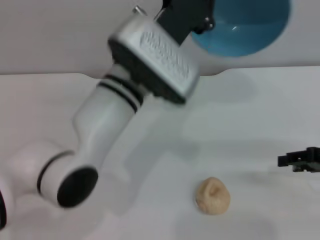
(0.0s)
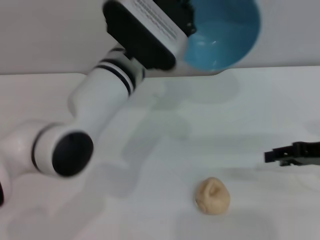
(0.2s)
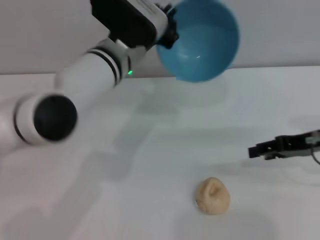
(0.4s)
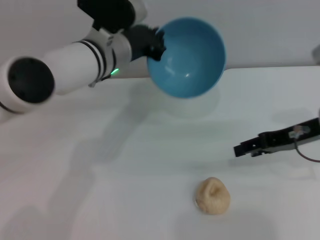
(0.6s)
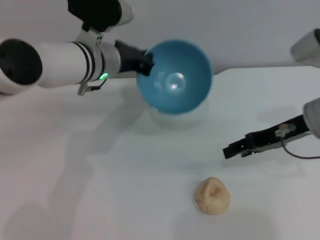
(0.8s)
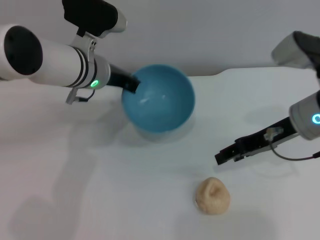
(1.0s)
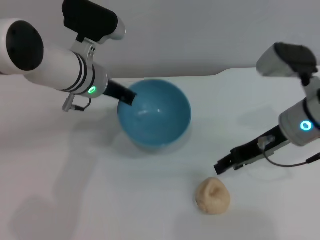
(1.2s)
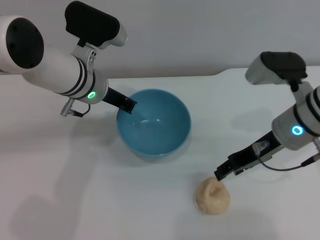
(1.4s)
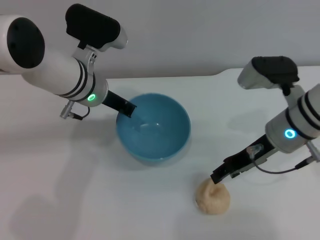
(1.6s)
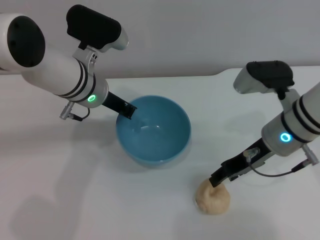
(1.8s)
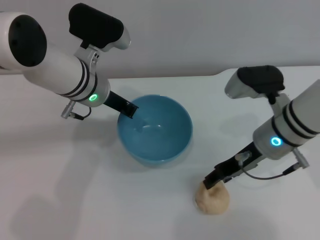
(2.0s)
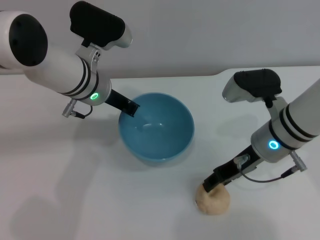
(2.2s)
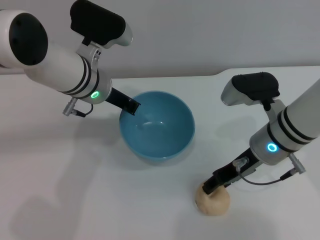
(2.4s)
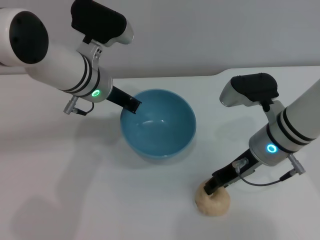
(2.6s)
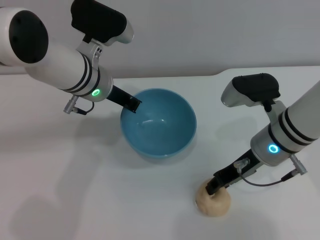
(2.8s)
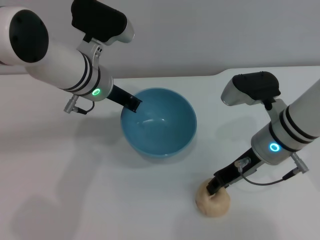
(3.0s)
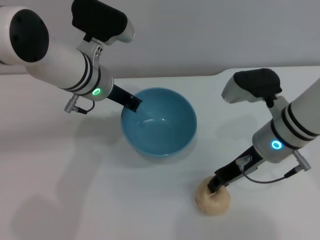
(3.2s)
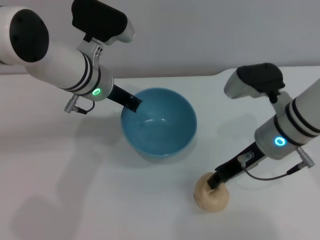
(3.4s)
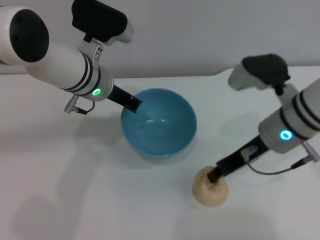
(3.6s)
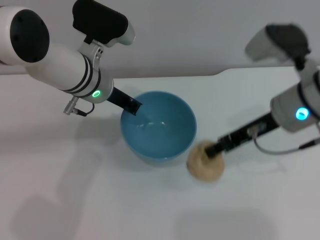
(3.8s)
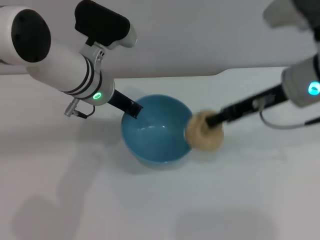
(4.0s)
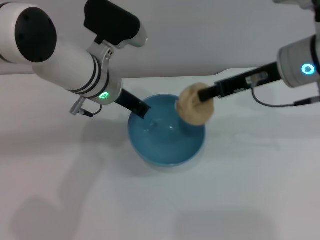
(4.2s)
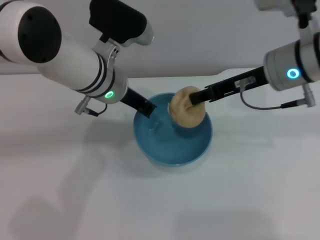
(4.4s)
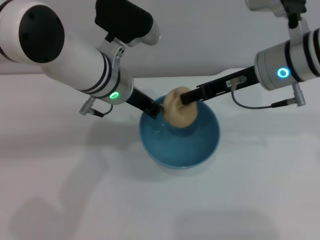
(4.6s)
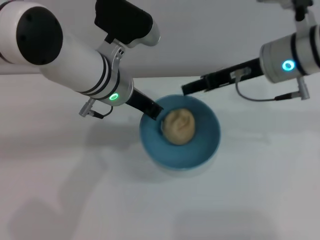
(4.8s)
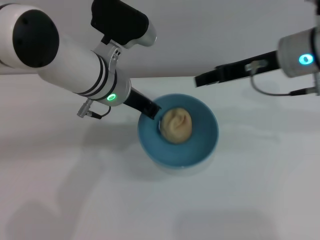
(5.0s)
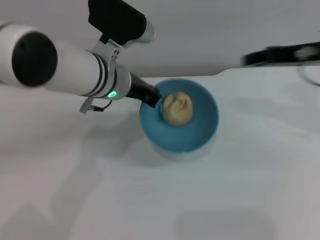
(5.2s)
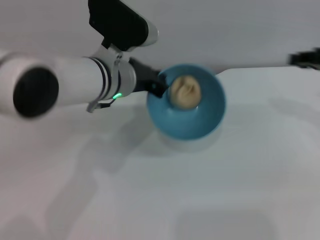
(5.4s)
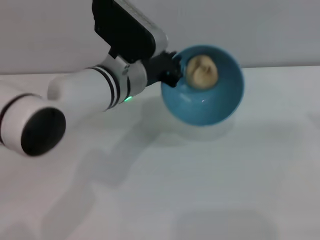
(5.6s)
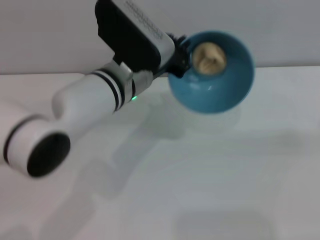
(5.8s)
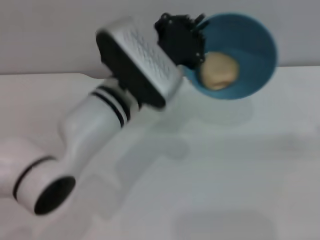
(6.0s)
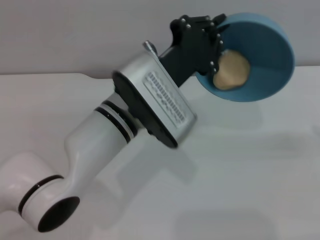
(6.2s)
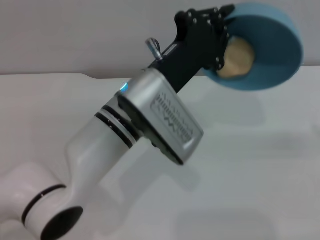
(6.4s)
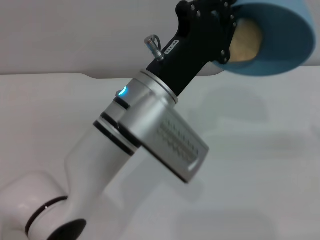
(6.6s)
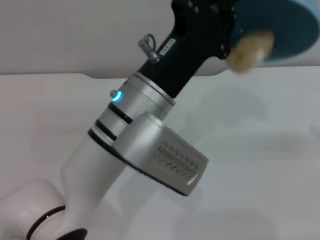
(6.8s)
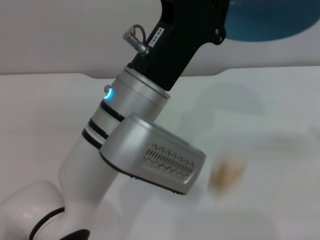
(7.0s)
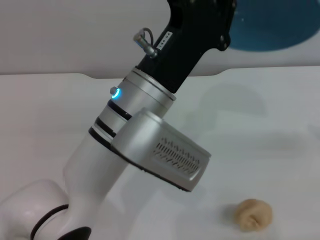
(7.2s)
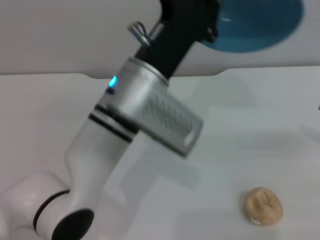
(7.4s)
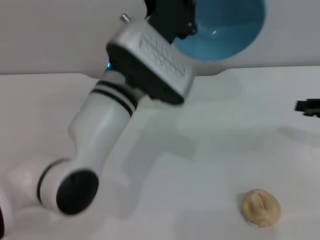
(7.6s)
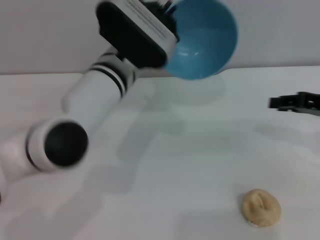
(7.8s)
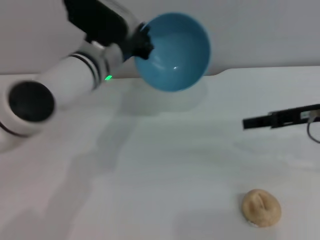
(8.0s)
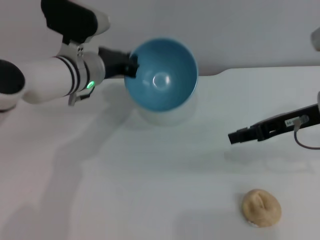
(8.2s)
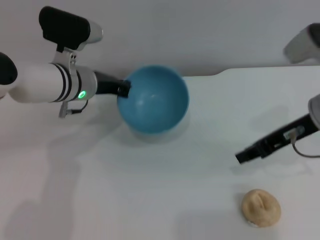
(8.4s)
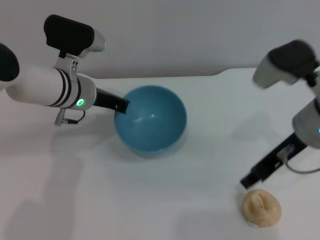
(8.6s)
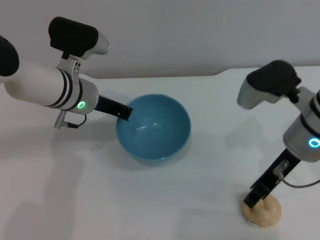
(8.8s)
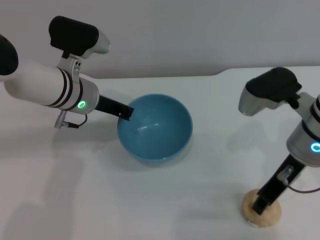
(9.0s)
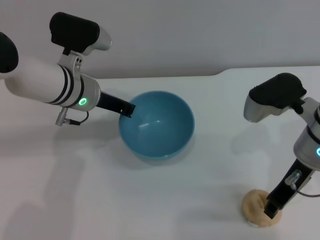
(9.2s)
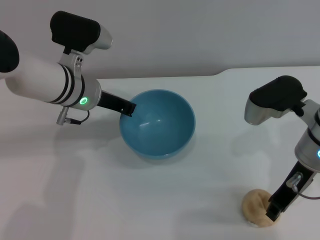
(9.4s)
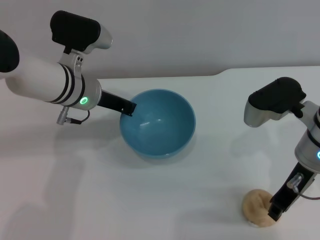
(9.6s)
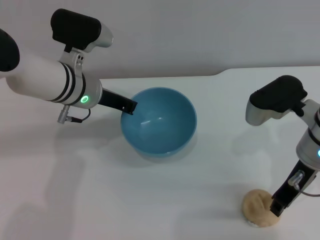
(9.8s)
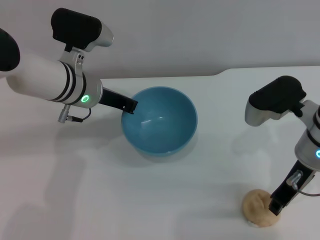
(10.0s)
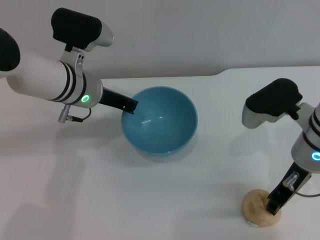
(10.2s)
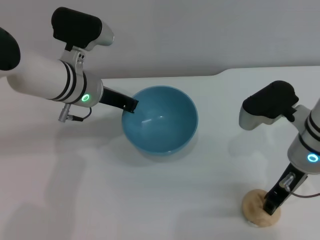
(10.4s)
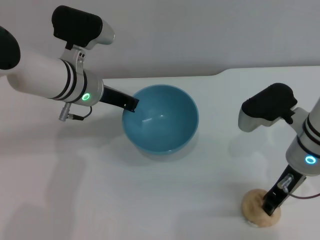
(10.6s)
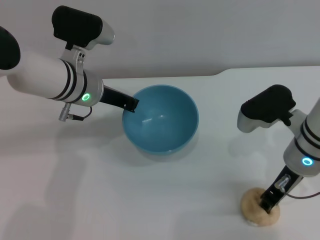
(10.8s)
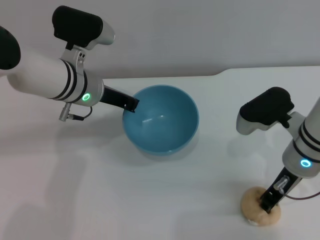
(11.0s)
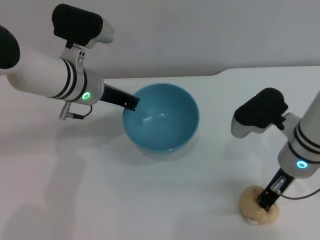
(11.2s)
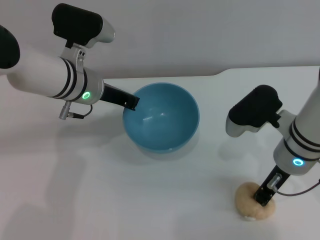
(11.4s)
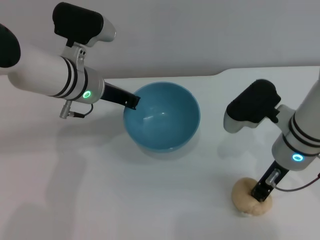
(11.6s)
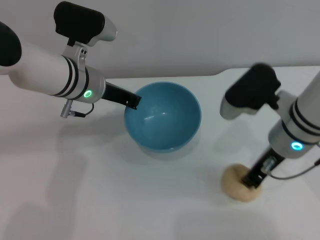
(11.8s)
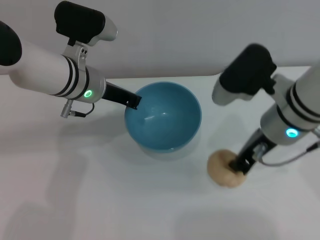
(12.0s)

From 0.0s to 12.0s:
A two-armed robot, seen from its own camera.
Task of the whole recording: put the egg yolk pastry into the blue bowl and pour it out repeatedly.
Step, from 0.0s to 3.4s: Pick up the egg yolk pastry with the right gripper.
Step, from 3.6s to 5.0s: Place the egg yolk pastry into the bowl.
Step, from 5.2s to 7.4s: Pour the egg yolk pastry out of bowl.
Step, from 7.6s to 11.6s: Pick up the egg yolk pastry with the right gripper.
From 0.0s to 1.6s: The right gripper heads to the left, covering some 15 cm; the left gripper is displaced to the left and forward by some 10 cm.
From 1.6s to 3.0s: The grippers make only small movements.
From 3.0s to 4.4s: The right gripper heads upward, covering roughly 10 cm, and closes.
From 4.4s to 6.0s: The right gripper moves to the right, about 20 cm, and opens up; the left gripper heads backward, covering roughly 5 cm.
From 6.0s to 7.6s: The right gripper goes approximately 5 cm to the left.
From 7.6s to 9.0s: The left gripper travels to the left and forward by about 10 cm, while the right gripper shifts approximately 15 cm to the left.
From 9.0s to 10.4s: The grippers move only a little.
From 10.4s to 12.0s: The right gripper changes place by roughly 5 cm.

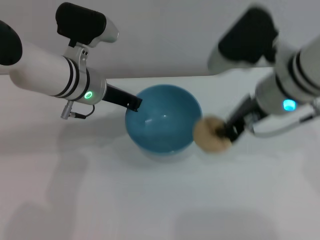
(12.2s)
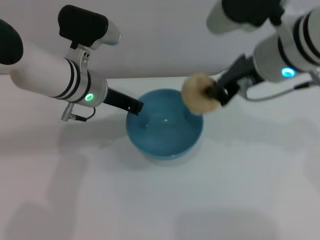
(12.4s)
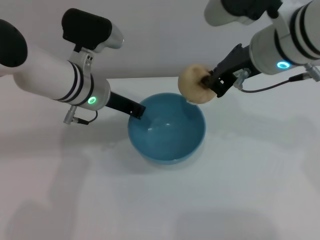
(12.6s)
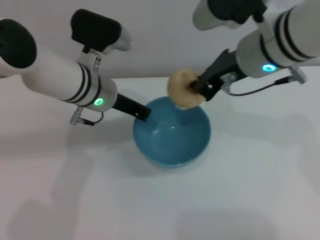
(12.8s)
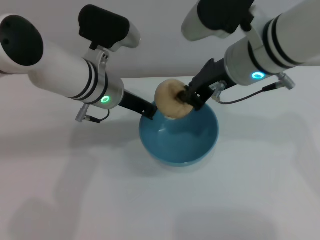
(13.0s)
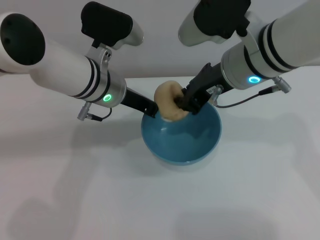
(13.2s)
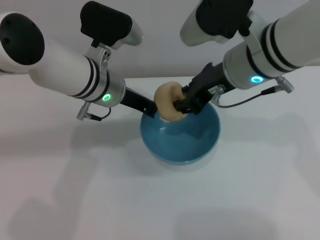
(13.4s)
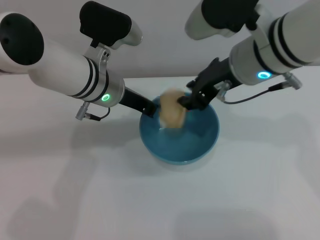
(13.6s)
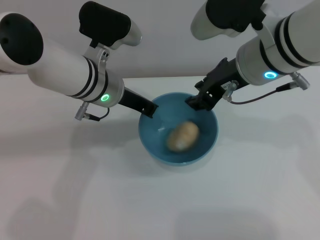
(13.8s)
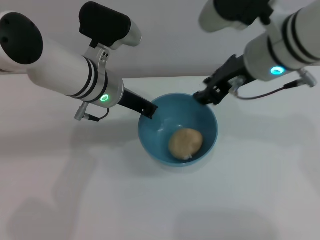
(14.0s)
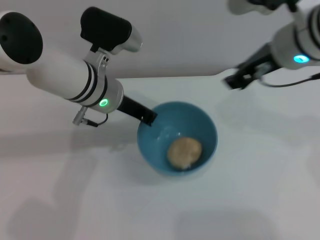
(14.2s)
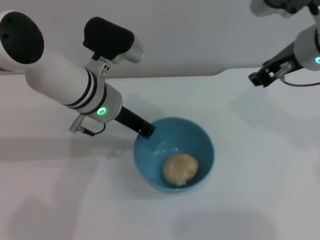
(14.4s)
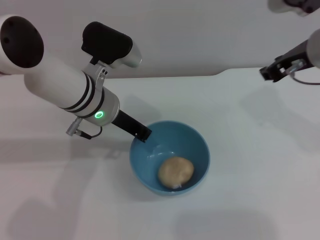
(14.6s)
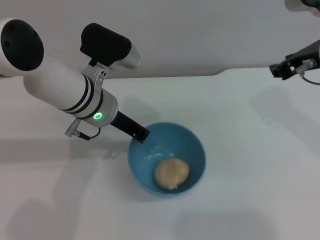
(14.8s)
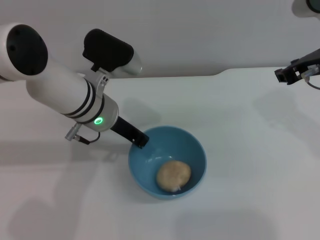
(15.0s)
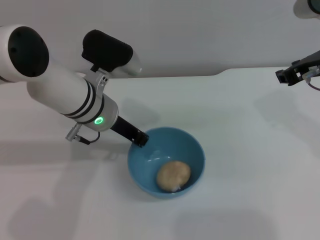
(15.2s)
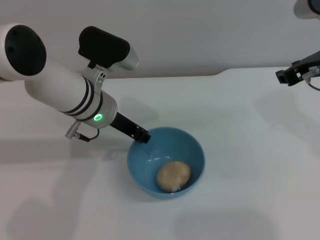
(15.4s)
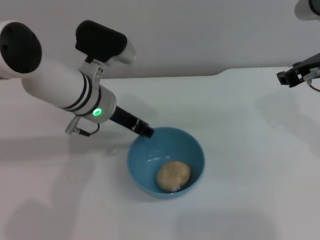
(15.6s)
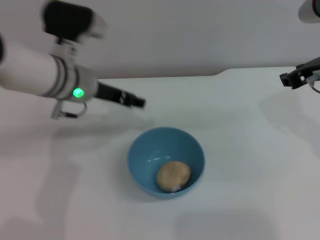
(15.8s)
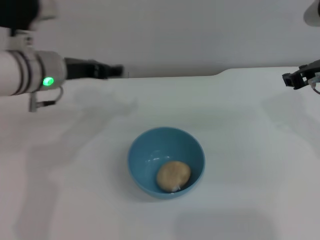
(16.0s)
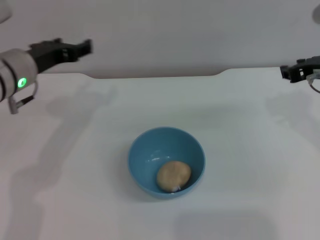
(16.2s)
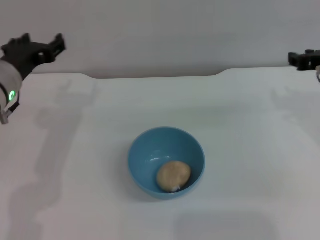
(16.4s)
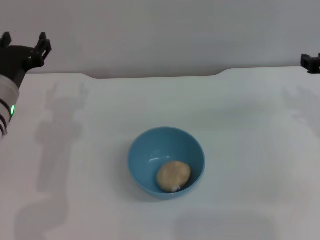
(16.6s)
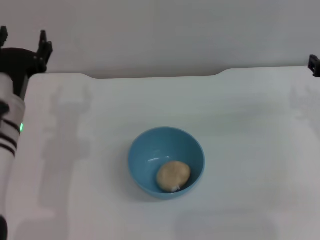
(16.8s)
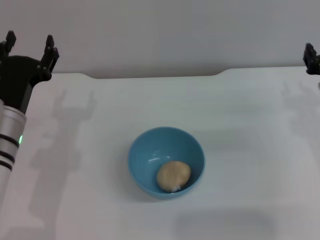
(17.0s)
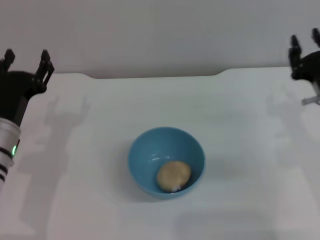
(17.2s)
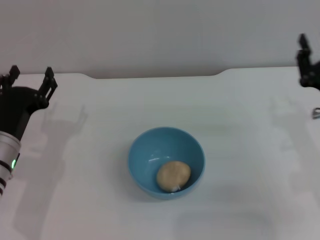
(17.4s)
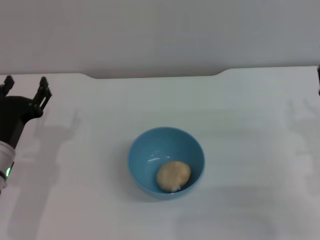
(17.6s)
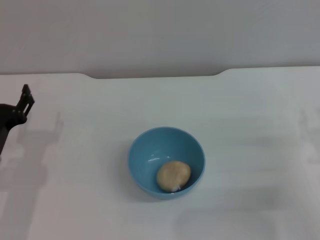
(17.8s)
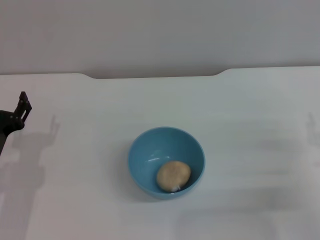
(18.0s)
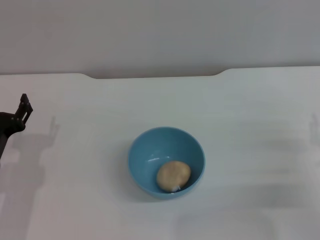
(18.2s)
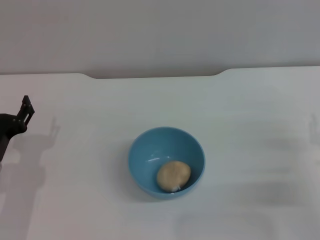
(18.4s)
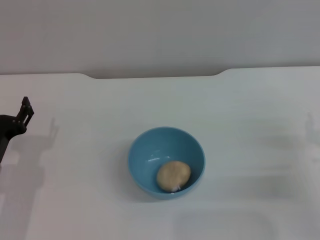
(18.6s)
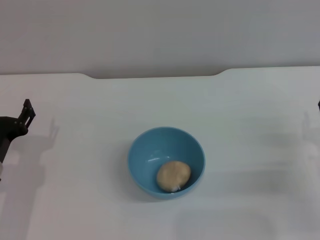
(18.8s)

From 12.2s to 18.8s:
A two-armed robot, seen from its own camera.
Task of the whole recording: put the egg yolk pastry into the blue bowl and pour it out repeatedly.
Step, from 12.2s to 14.0s: Place the egg yolk pastry into the bowl.
Step, from 14.2s to 15.8s: Place the bowl on the table.
From 12.2s to 13.8s: The right gripper opens up.
From 13.8s to 15.4s: The right gripper goes some 10 cm to the right.
From 15.4s to 17.2s: The left gripper moves to the left, backward and downward, about 15 cm, and opens, while the right gripper travels downward and backward by about 15 cm.
From 17.2s to 18.8s: The right gripper is displaced downward and to the right by about 10 cm. The left gripper ends up approximately 5 cm from where it was.

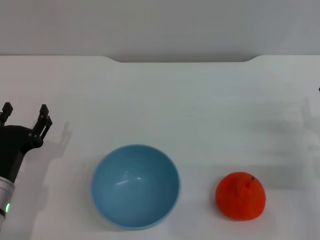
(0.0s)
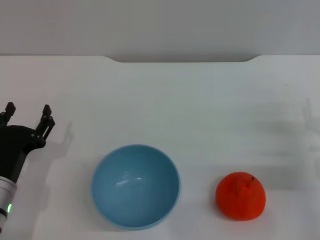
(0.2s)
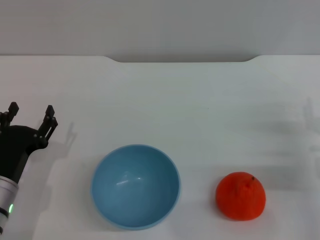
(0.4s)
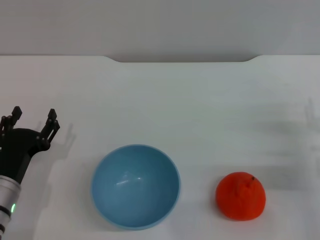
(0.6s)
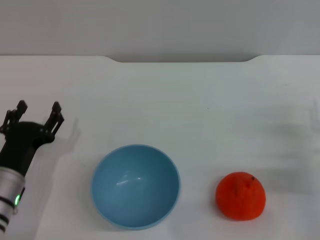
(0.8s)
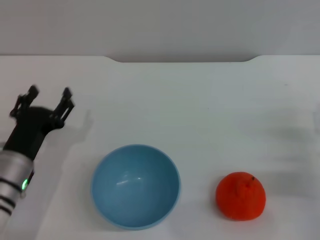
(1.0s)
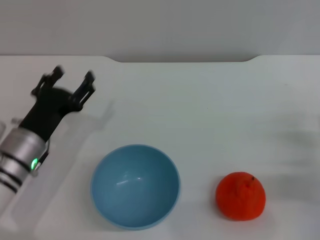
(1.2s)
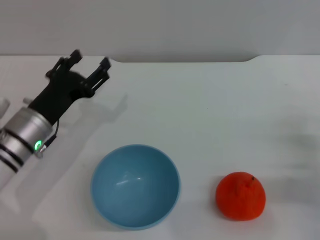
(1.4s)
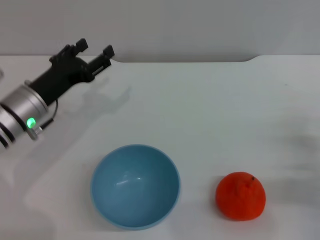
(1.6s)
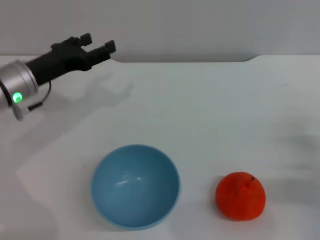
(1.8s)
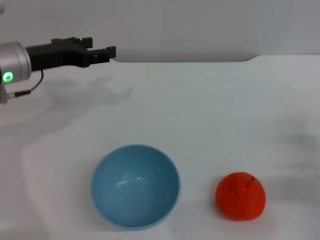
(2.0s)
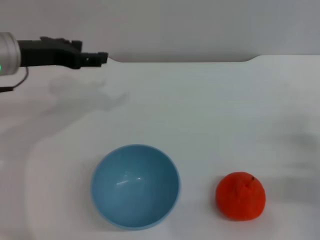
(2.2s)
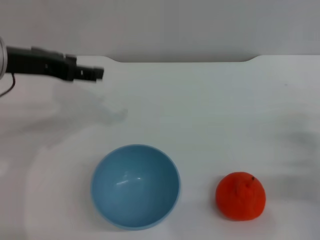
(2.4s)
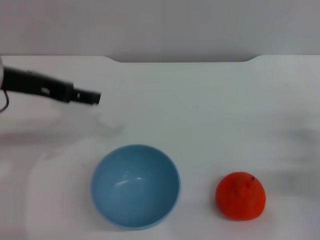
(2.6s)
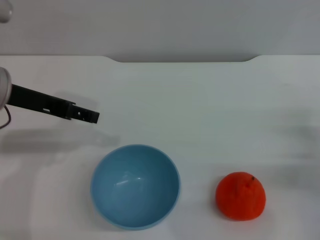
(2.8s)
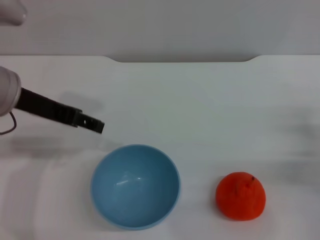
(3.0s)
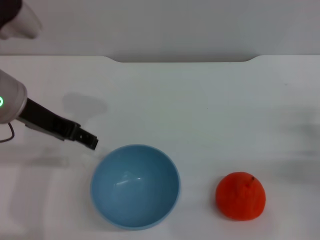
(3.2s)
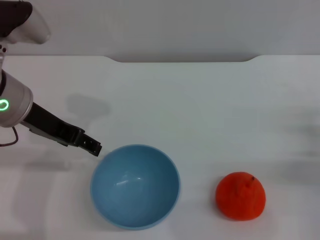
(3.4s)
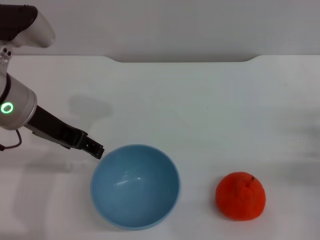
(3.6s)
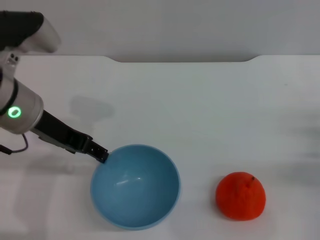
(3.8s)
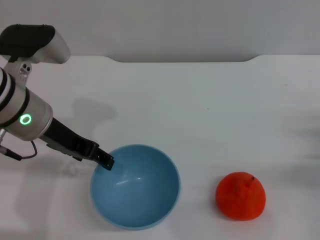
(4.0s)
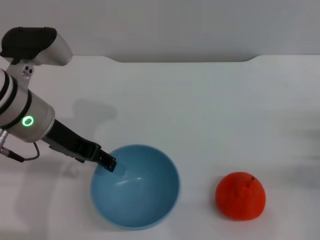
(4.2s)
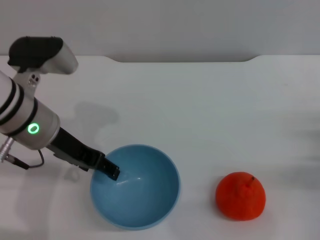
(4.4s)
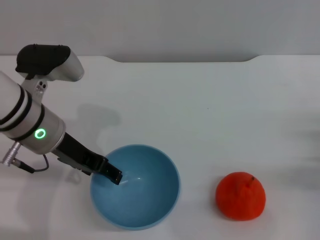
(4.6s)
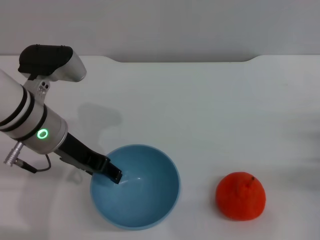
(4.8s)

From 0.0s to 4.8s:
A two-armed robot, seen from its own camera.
Task of the whole recording: put the orange into the blue bowl and pour it out repeatedly.
From 0.0s to 1.6s: The left gripper is displaced forward and upward by roughly 15 cm.
From 1.6s to 3.2s: The left gripper moves upward, roughly 15 cm.
From 3.2s to 4.8s: The left gripper travels downward by some 5 cm.
